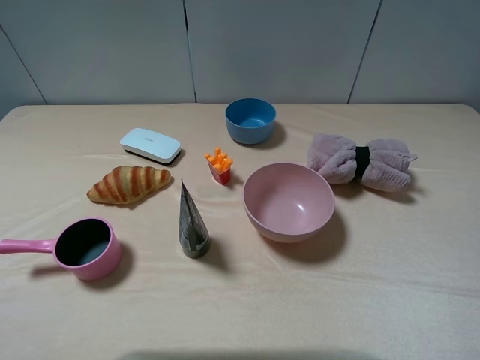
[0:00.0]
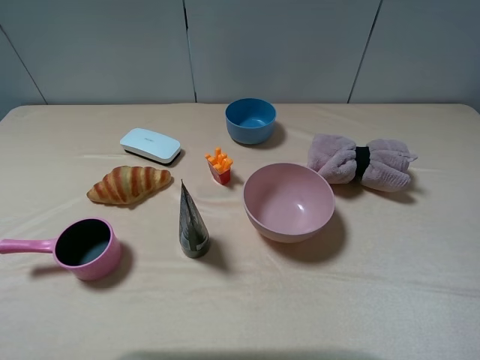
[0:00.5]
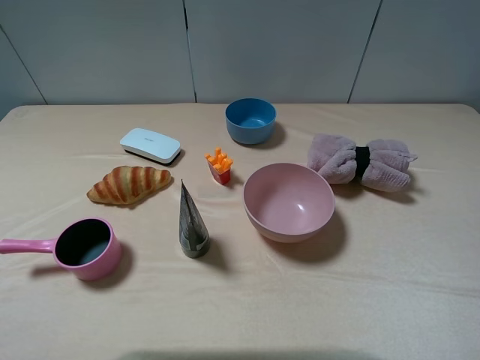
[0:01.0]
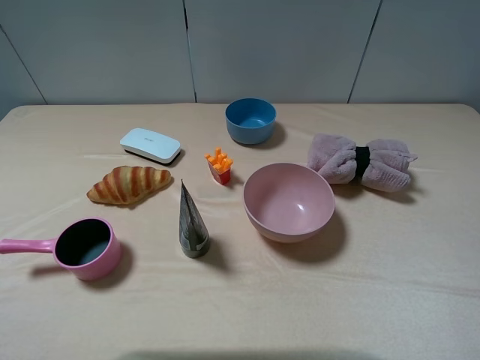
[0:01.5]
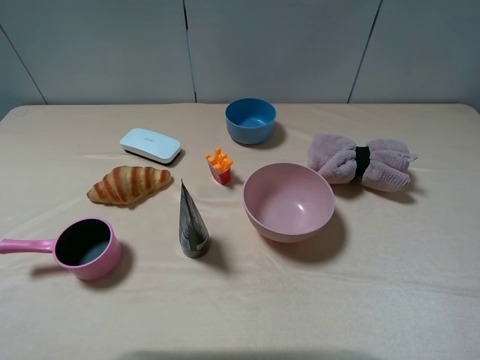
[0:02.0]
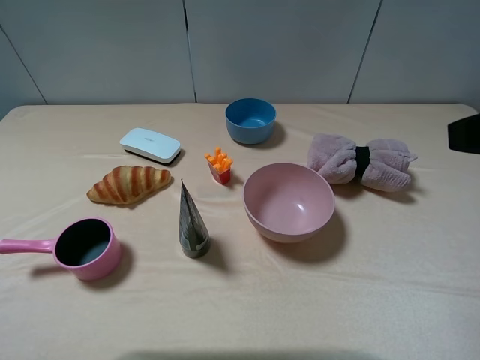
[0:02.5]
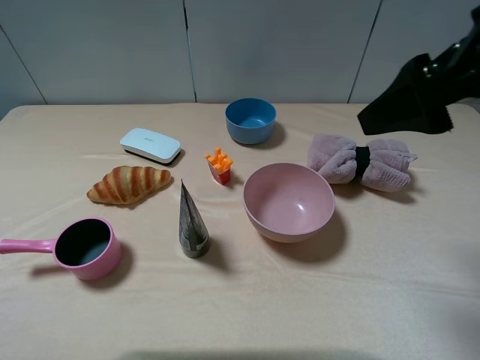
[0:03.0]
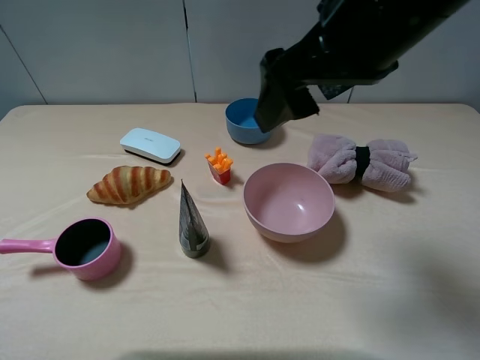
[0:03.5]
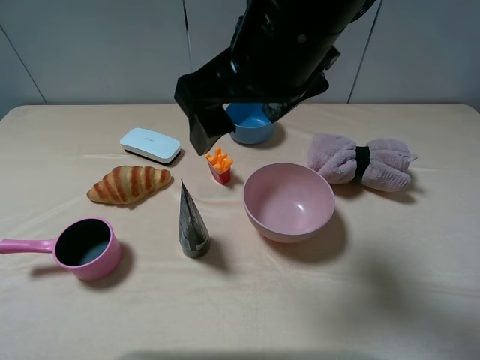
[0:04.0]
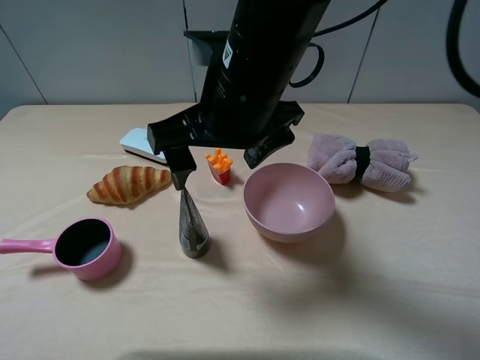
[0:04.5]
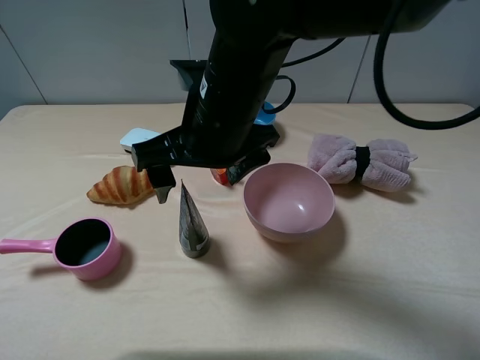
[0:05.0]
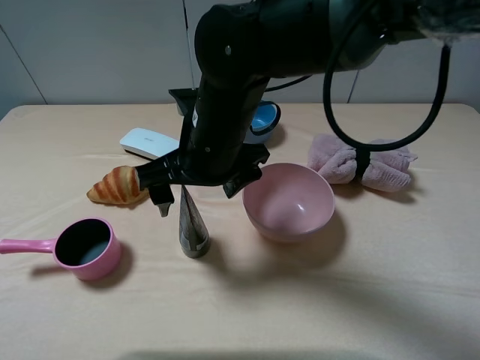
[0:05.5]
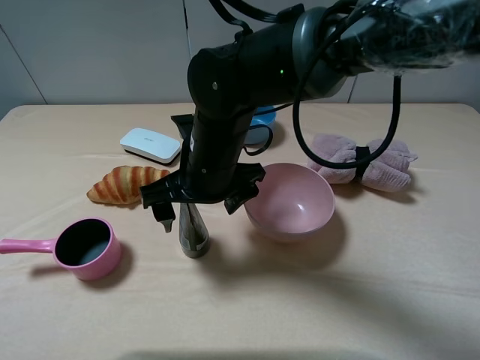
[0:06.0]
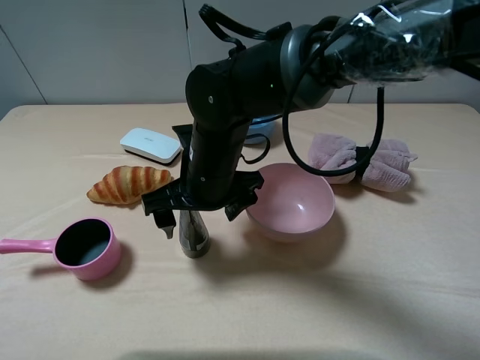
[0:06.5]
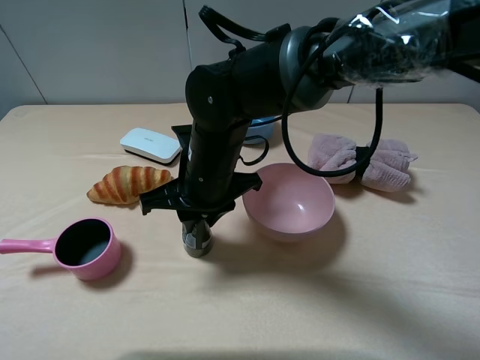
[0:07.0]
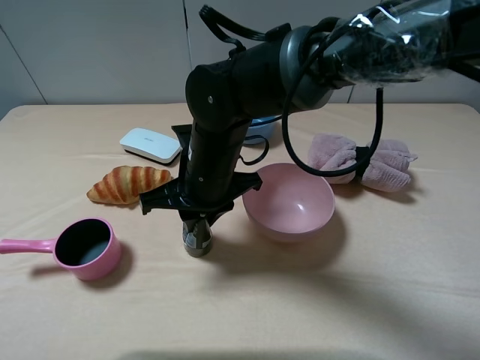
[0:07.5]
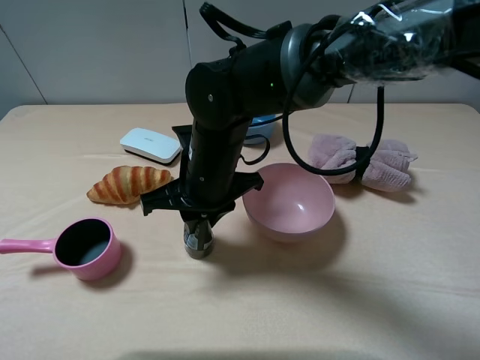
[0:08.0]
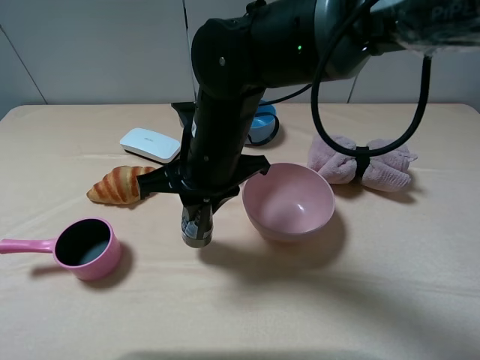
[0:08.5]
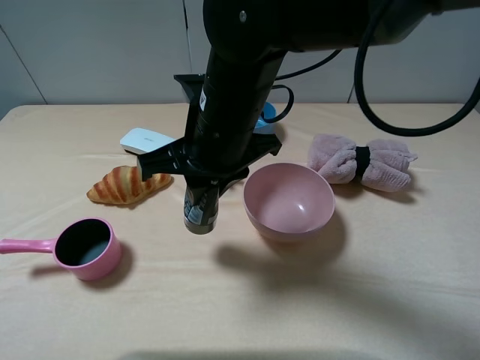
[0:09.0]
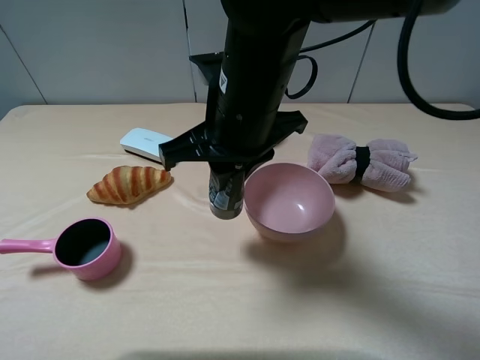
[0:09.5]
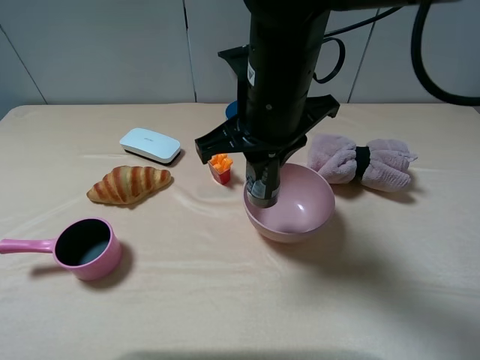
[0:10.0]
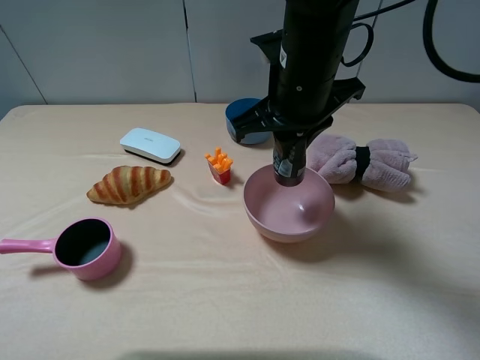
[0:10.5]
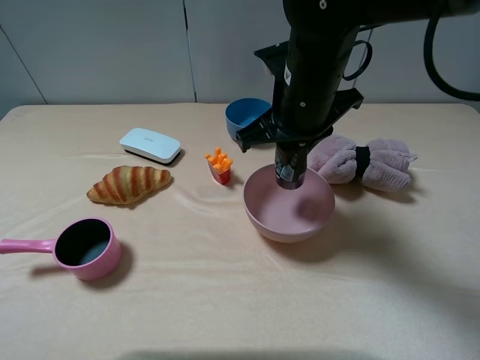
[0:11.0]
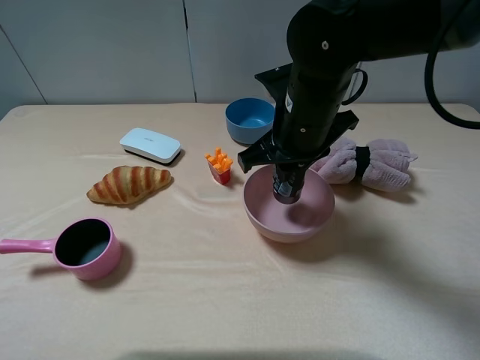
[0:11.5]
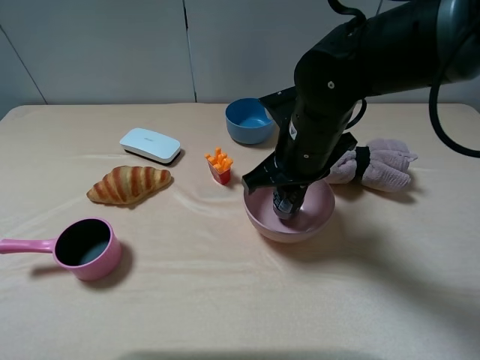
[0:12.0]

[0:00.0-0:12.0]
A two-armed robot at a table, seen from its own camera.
Task of the whole recording: pick up an item with a gripper and place it in a random container on the table.
Step, 0:00.0 to 0:08.0: Grasp the soft facial cleanser with the right gripper.
0:02.0 to 0:04.0: The right gripper heads to the left and forward, covering about 30 cm.
0:04.0 to 0:06.0: The right gripper goes roughly 15 cm downward and to the left.
0:06.0 to 0:08.0: The right gripper closes up.
0:08.0 to 0:10.0: The right gripper goes approximately 10 cm upward and to the right.
0:10.0 to 0:12.0: The right gripper moves downward, some 5 cm.

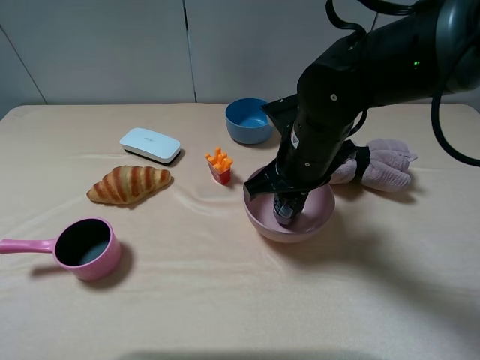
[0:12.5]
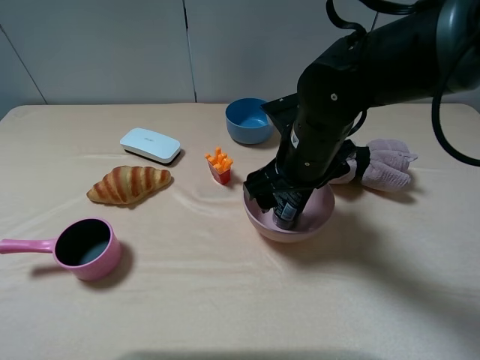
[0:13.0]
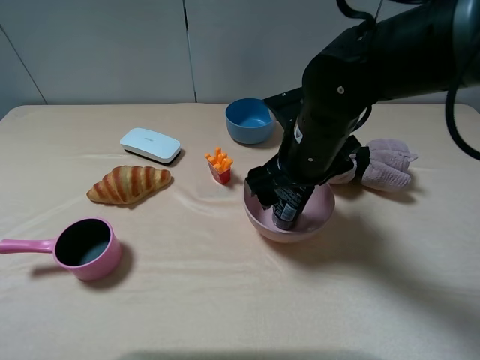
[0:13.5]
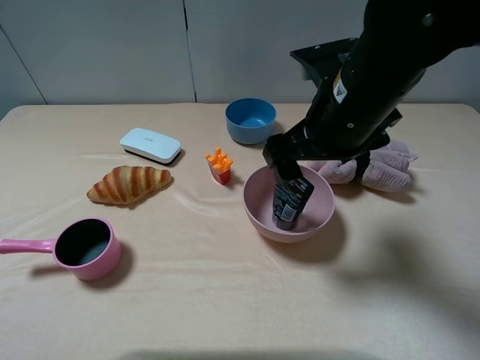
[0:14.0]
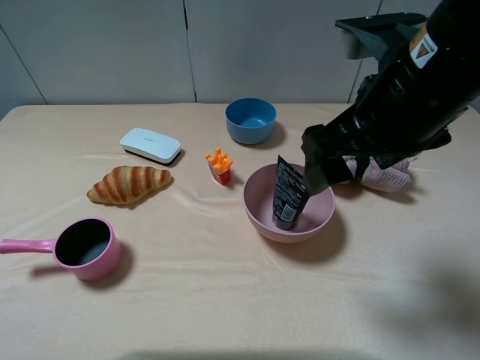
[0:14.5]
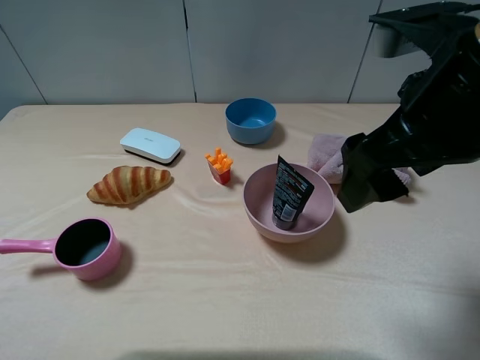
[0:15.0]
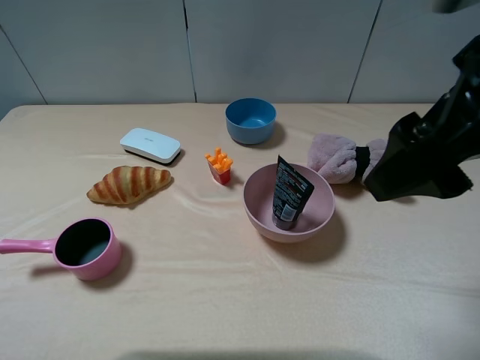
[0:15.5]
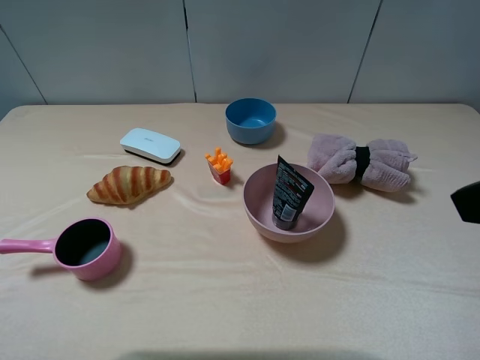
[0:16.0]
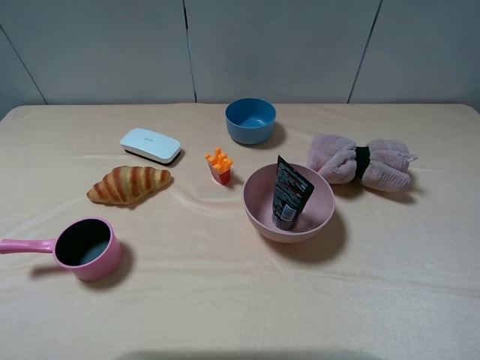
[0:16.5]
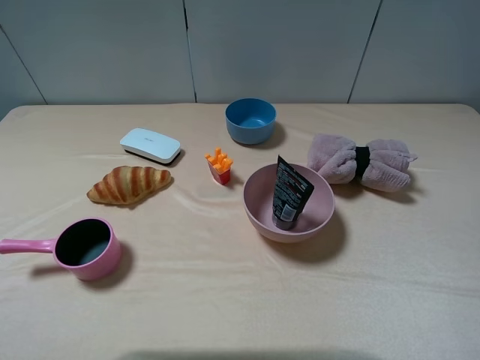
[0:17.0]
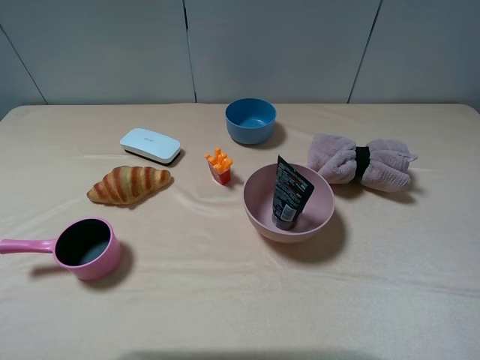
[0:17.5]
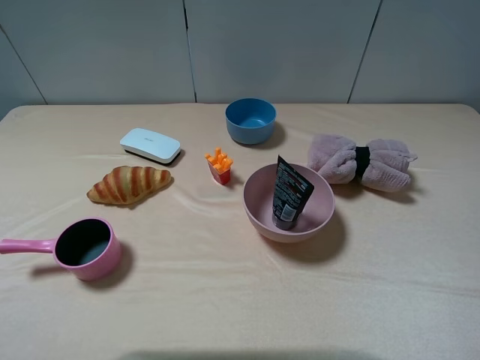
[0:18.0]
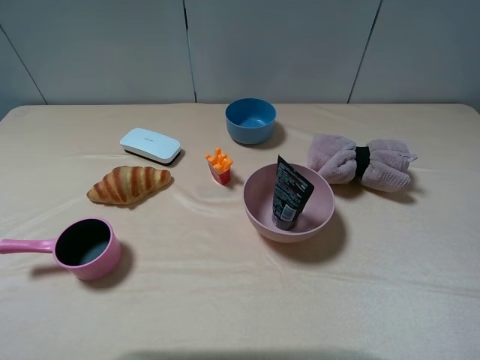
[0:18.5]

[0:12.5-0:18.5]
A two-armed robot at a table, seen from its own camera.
Task of the whole recording: pick up an item with a gripper and place it in a random container on the table.
0:12.5 to 0:14.5: The right gripper goes some 15 cm upward, backward and to the right, and opens its fingers.
0:14.5 to 0:16.5: The right gripper is displaced to the right and backward by about 25 cm.
